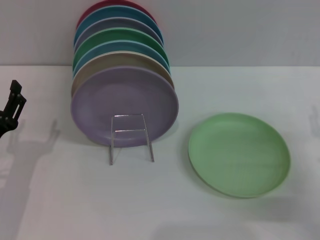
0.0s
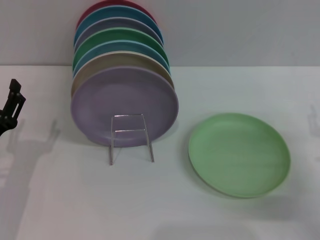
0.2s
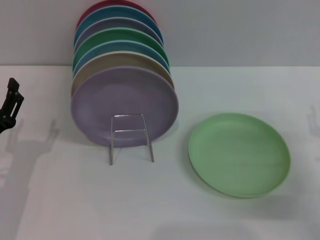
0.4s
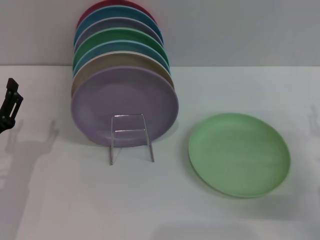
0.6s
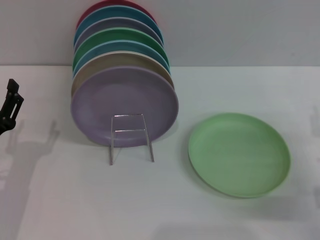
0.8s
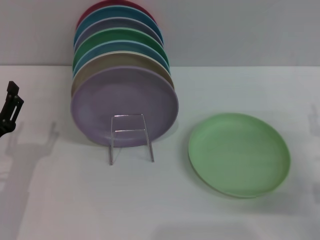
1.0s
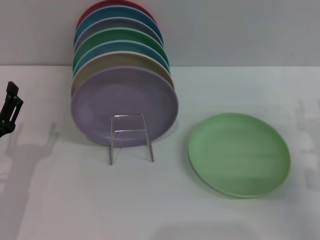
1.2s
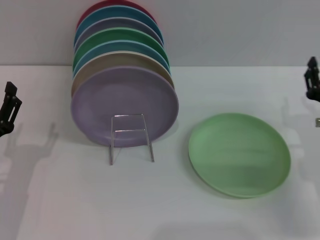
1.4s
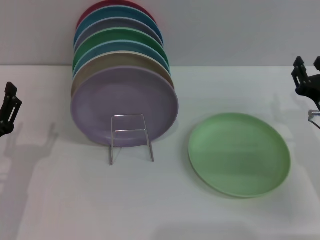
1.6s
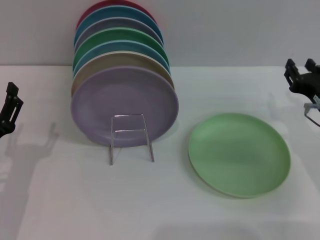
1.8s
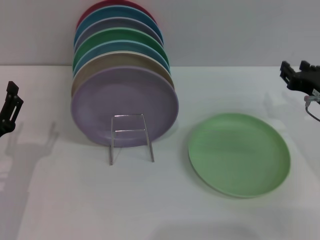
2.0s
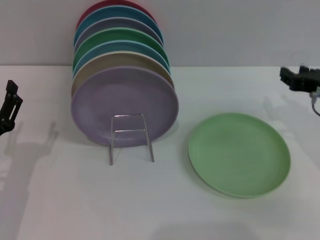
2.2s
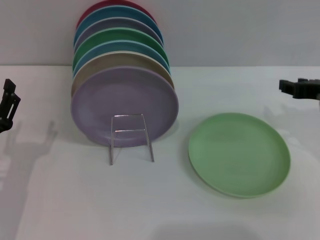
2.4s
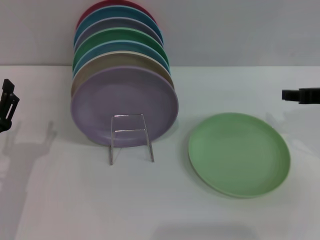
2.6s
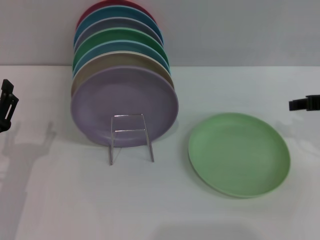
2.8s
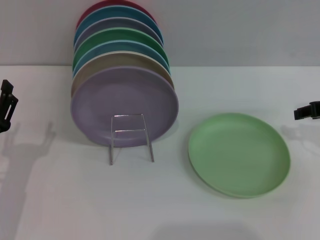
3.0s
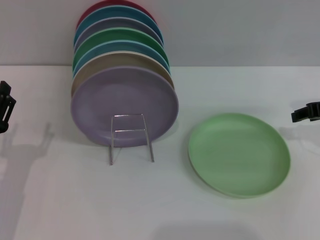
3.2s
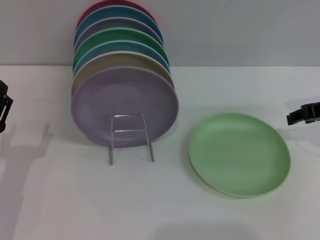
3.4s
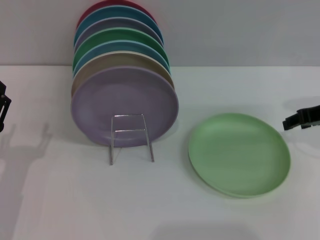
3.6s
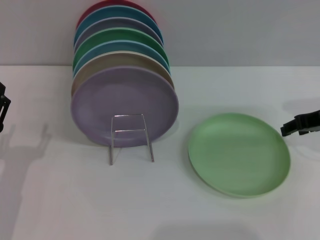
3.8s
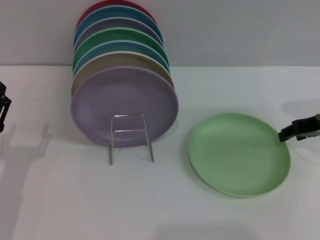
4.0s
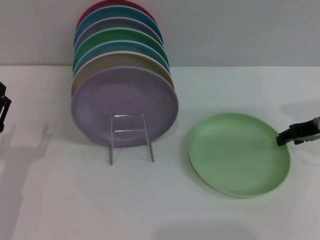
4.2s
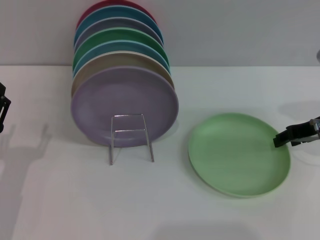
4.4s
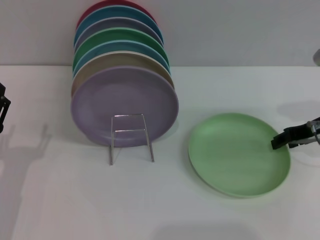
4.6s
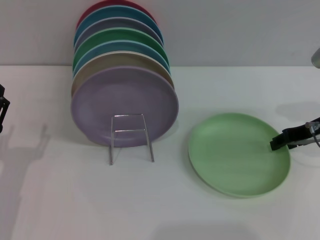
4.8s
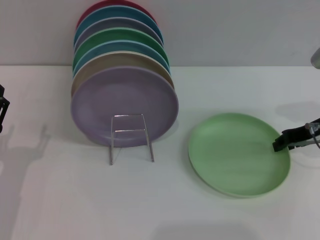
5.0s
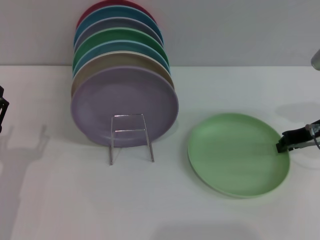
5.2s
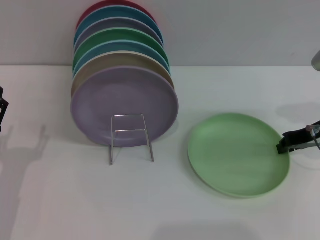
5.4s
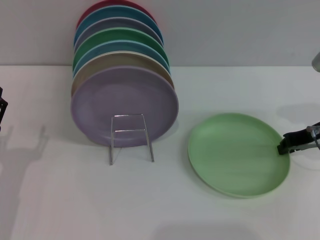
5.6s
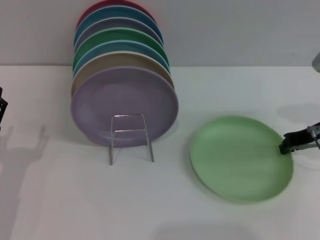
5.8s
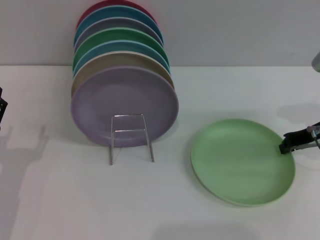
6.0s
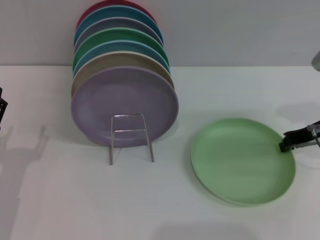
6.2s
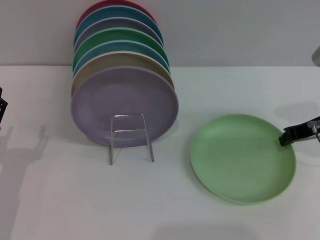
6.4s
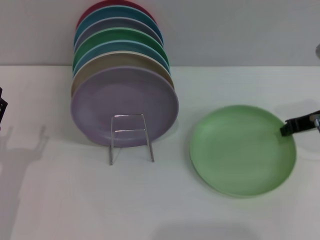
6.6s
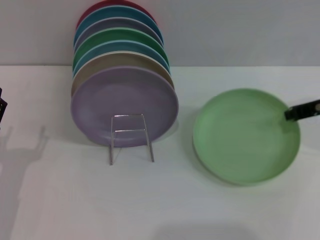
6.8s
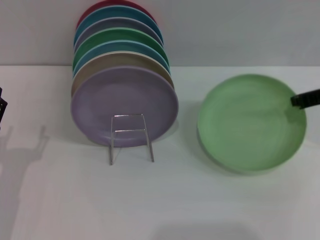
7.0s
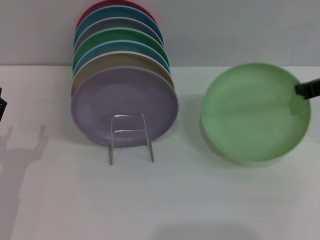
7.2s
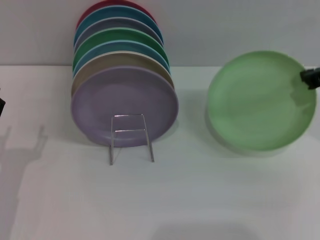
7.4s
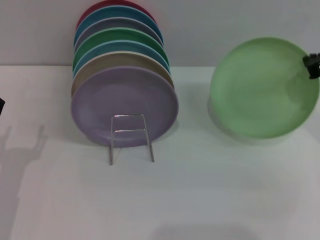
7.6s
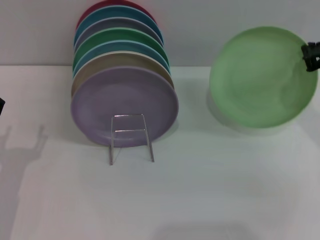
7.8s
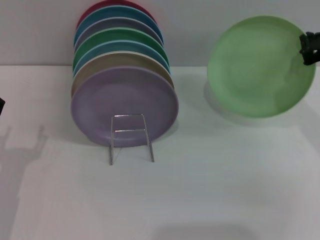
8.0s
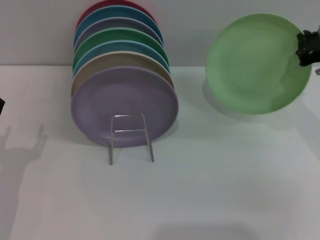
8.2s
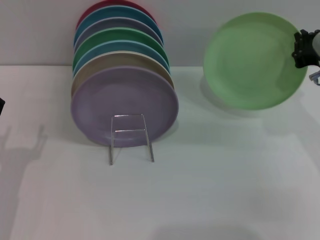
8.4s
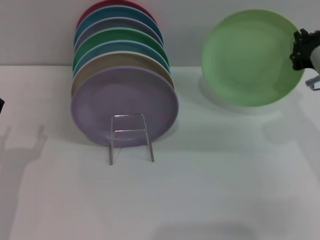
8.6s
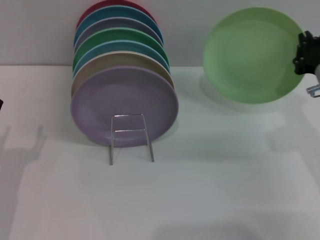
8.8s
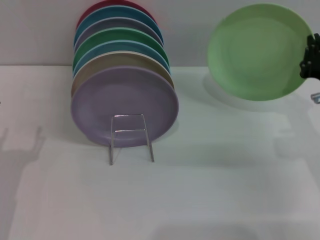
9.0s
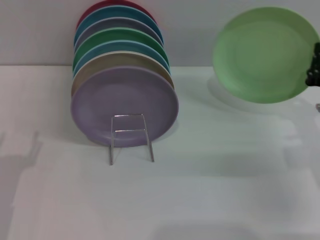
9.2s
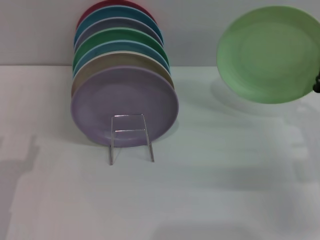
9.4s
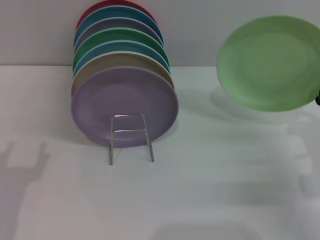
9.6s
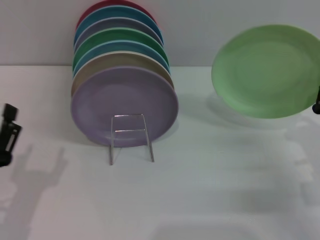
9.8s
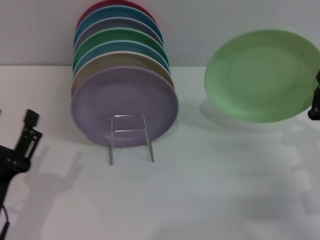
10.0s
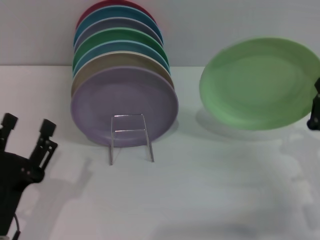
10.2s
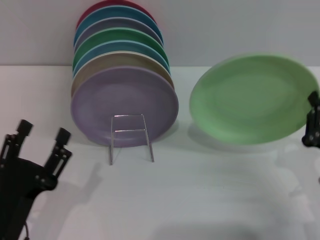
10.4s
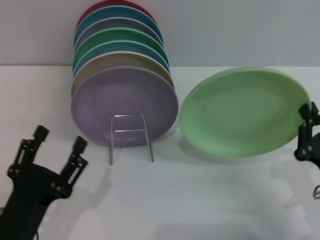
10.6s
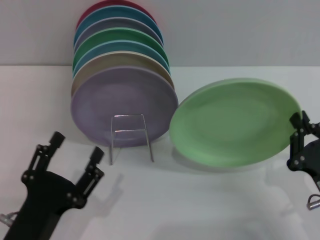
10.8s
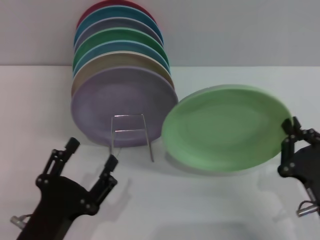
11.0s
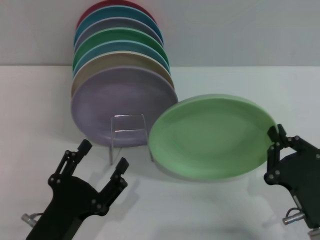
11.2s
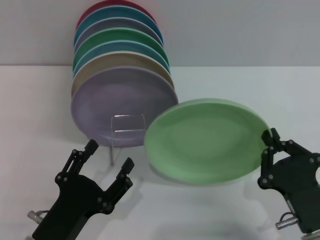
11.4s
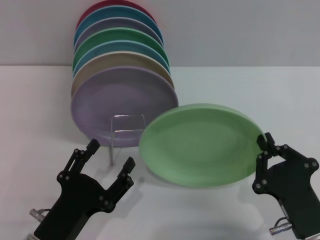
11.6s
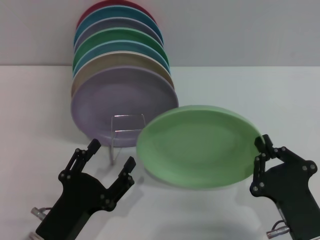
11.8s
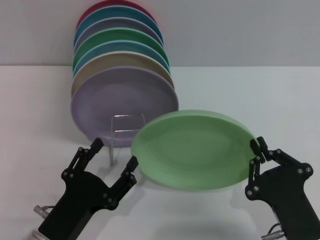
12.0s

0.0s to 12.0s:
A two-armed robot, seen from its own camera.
Task of the whole recording: Grip the plate with one hand, pass it to the other, then set it on the shelf.
Step, 0.0s to 7.6s: Pick up the plate with the right gripper.
0.0s to 1.6s: The right gripper is displaced forward by some 5 cm.
1.6s to 3.0s: The right gripper is displaced upward by about 10 cm.
3.0s to 4.4s: There are only small adjustments of the grippers.
4.4s to 6.0s: The right gripper closes its fingers.
6.0s to 7.6s: The right gripper is displaced upward by approximately 10 cm.
7.6s to 9.0s: The right gripper moves downward, some 10 cm.
9.0s to 10.4s: The left gripper goes roughly 10 cm backward and to the right. Meanwhile the right gripper shifts some 15 cm backward and downward.
10.4s to 12.0s: The right gripper is displaced to the left and backward by about 10 cm.

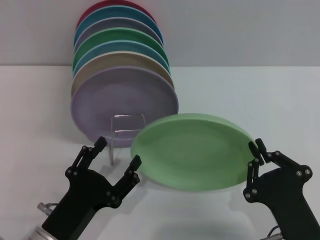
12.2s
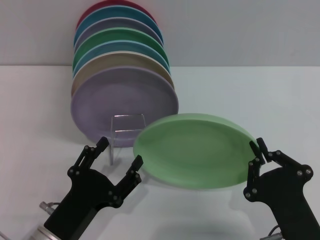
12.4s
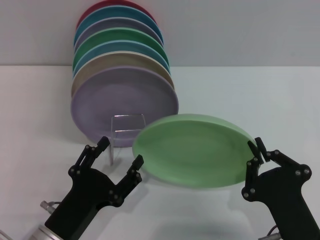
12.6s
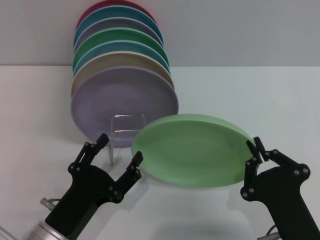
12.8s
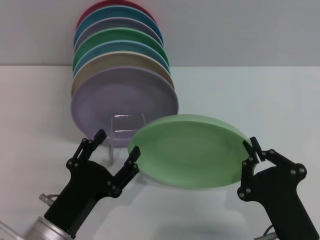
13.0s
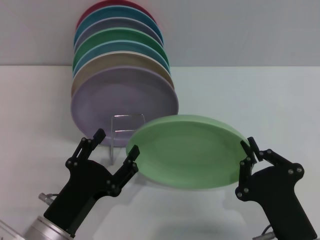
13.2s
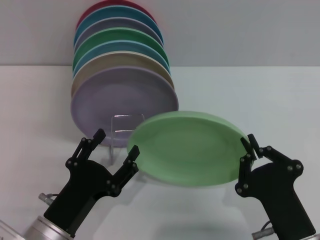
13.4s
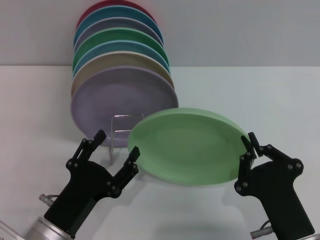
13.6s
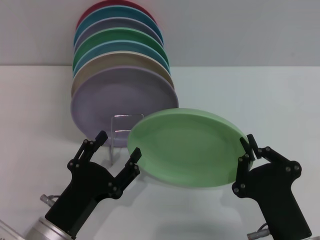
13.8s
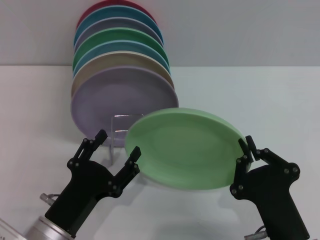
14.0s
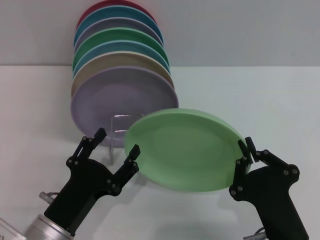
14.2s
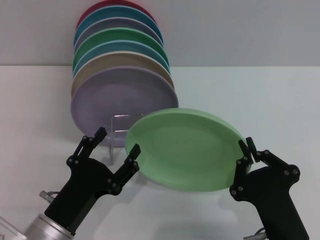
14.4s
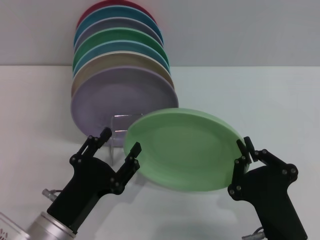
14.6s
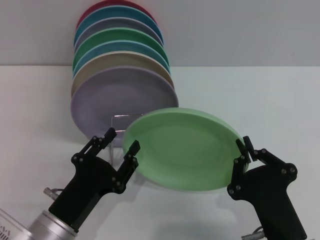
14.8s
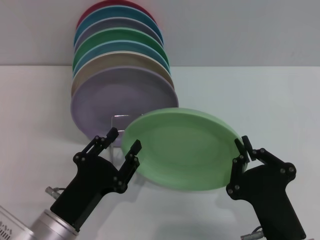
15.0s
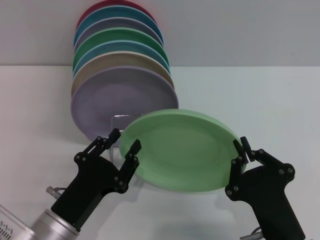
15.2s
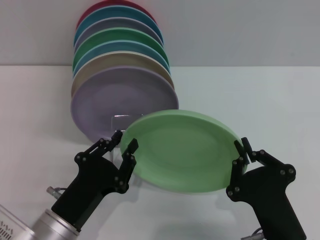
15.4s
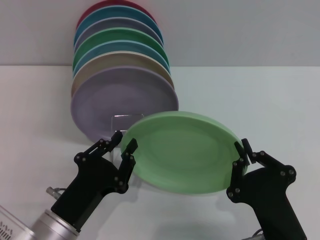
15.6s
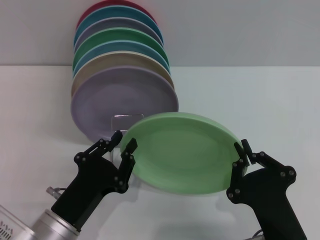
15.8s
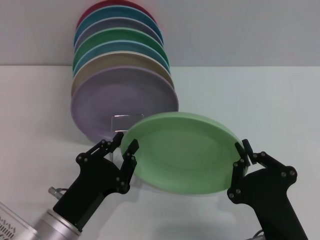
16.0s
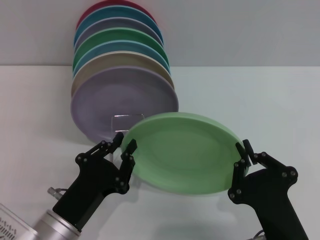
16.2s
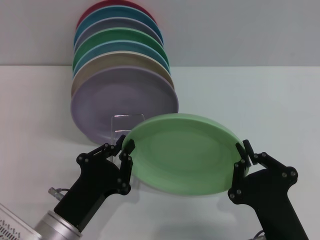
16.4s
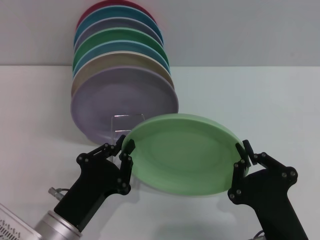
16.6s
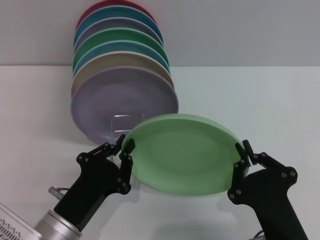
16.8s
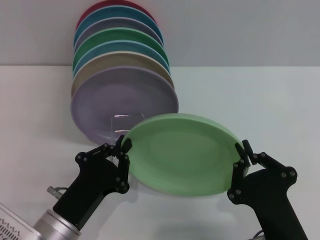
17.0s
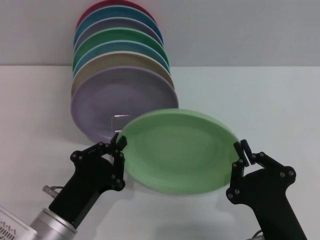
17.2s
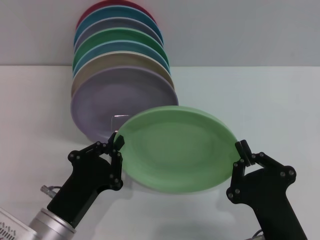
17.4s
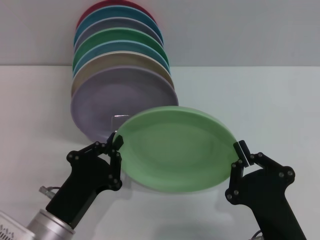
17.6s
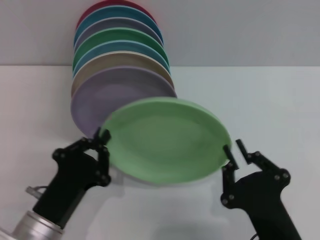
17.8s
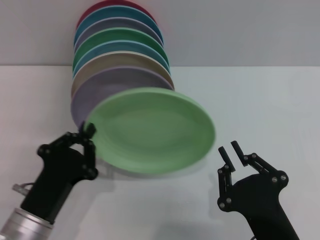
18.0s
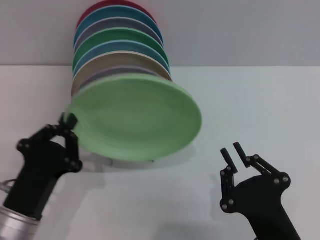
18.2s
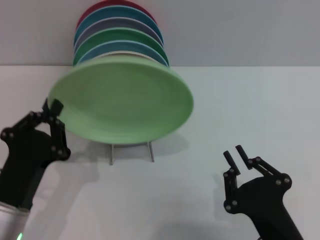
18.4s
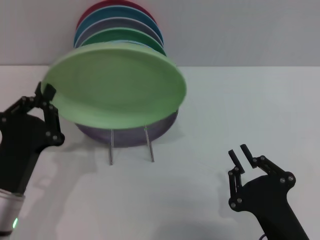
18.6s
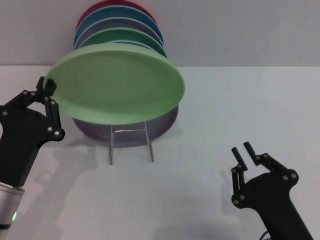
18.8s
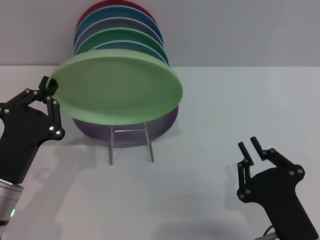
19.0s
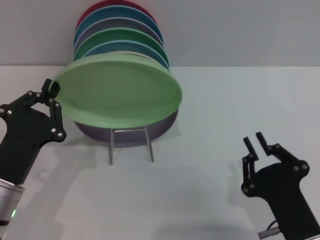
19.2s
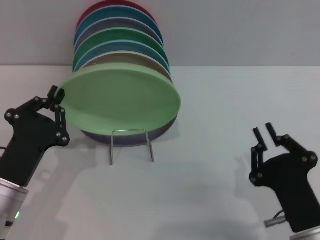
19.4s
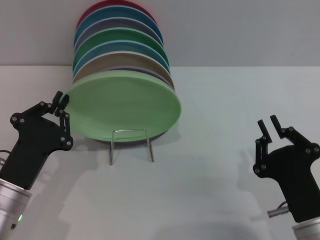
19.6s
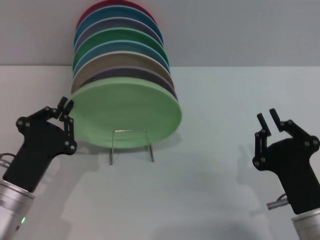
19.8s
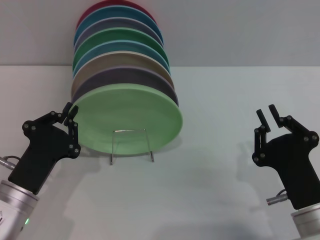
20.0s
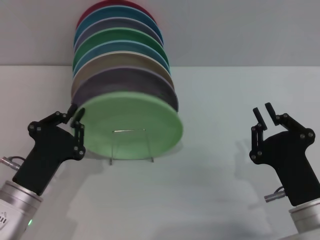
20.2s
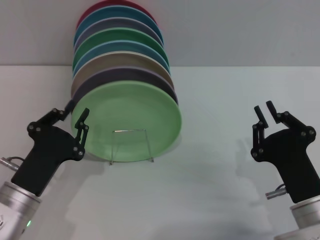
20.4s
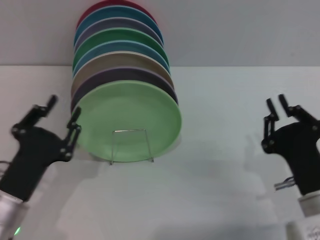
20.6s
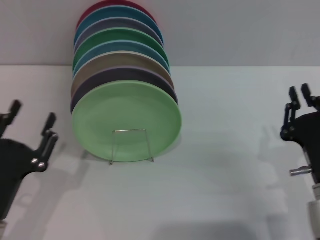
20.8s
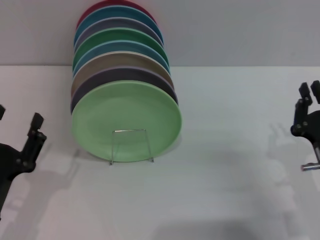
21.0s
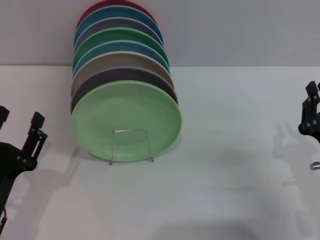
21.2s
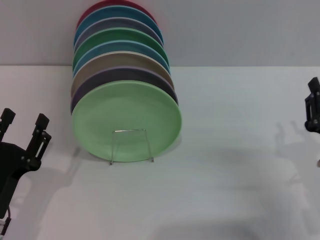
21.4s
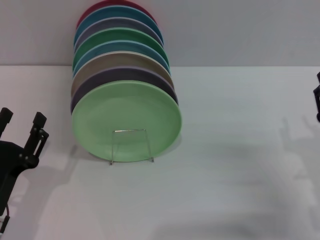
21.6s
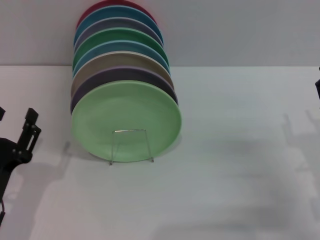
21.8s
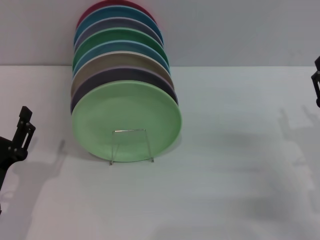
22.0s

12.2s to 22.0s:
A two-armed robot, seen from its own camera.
Task of the whole recording: Grip the plate with one hand, pass it to the other, then set it on the shelf.
Step, 12.2s to 17.8s: Pass the plate from the right gripper to the left gripper.
Step, 18.0s to 20.6s: Place the plate on the shelf with the left gripper.
12.2s to 15.0s: There are only small adjustments of the grippers.
15.0s to 16.4s: The left gripper closes.
16.4s to 17.8s: The grippers move only a little.
17.8s to 19.2s: The left gripper changes place by about 5 cm.
19.2s to 20.6s: The right gripper heads forward, covering about 5 cm.
20.6s to 22.0s: The right gripper heads to the right and forward, covering about 10 cm, and opens, while the left gripper opens up.
